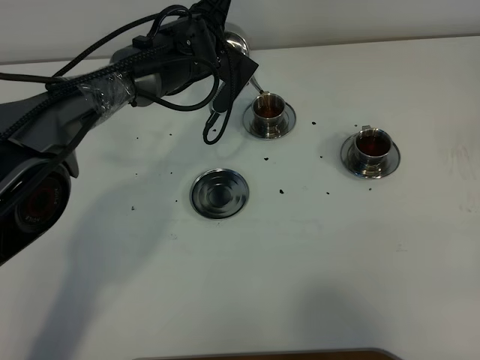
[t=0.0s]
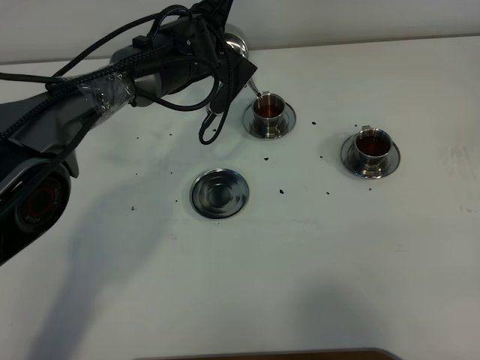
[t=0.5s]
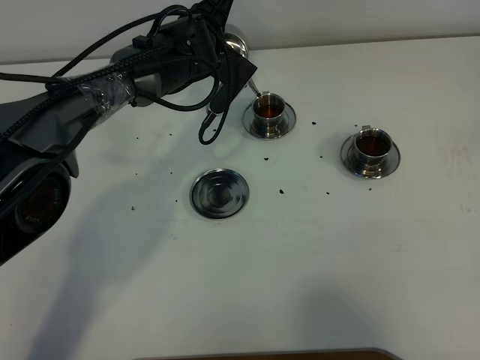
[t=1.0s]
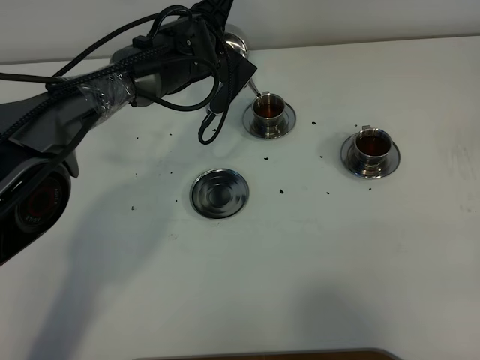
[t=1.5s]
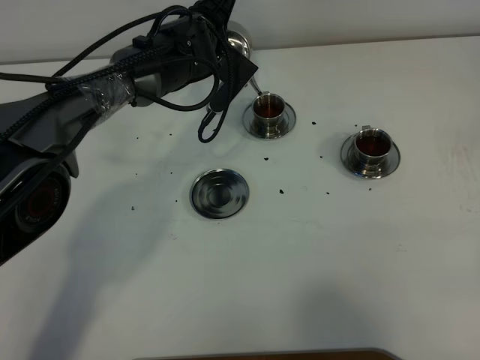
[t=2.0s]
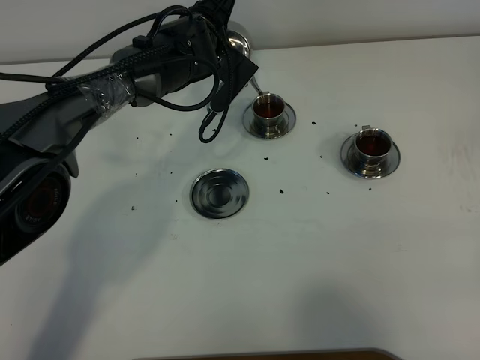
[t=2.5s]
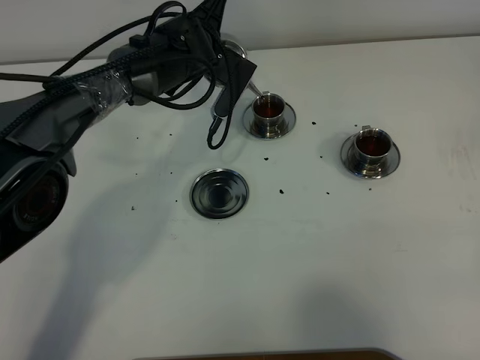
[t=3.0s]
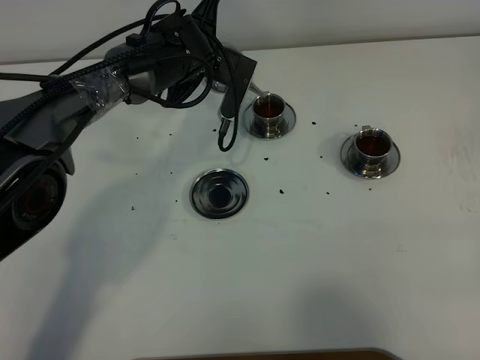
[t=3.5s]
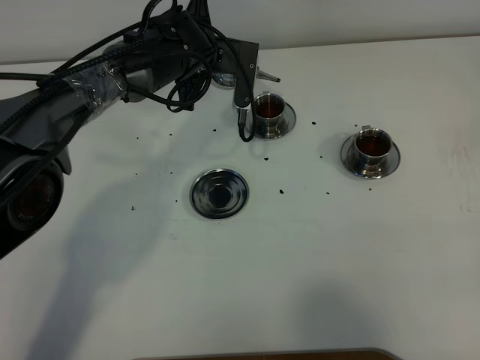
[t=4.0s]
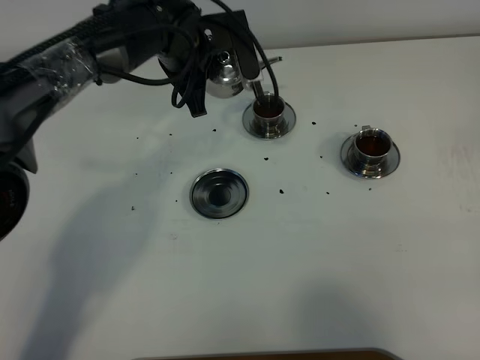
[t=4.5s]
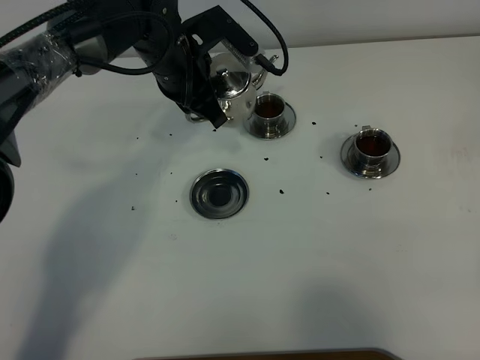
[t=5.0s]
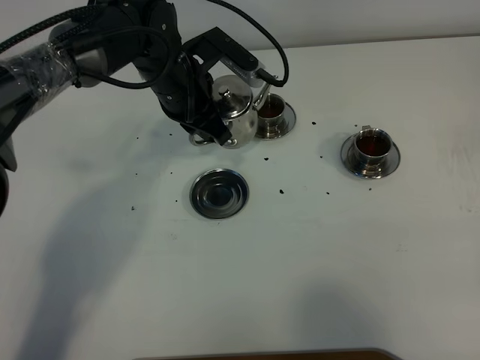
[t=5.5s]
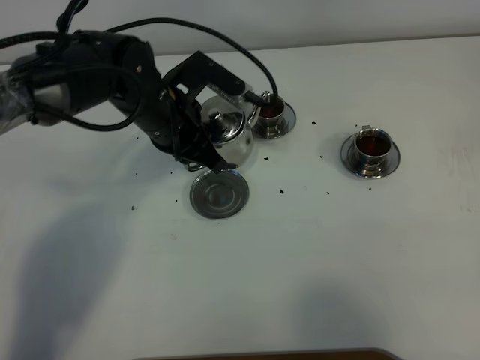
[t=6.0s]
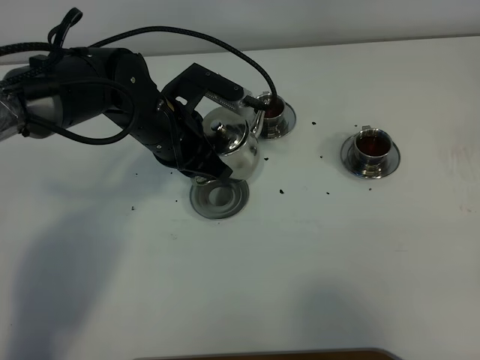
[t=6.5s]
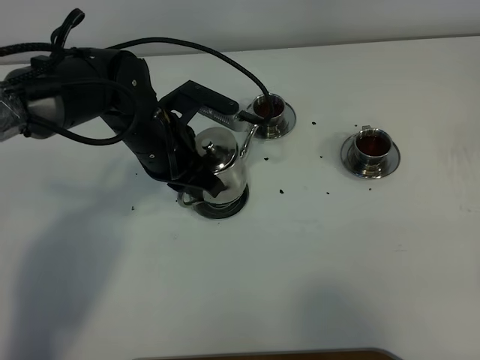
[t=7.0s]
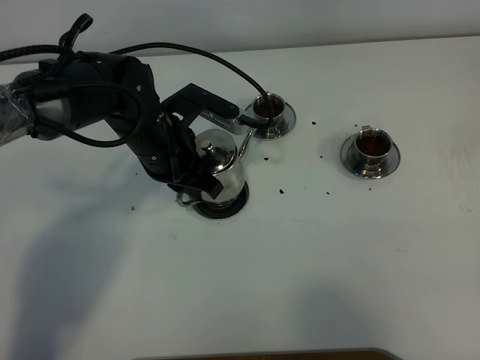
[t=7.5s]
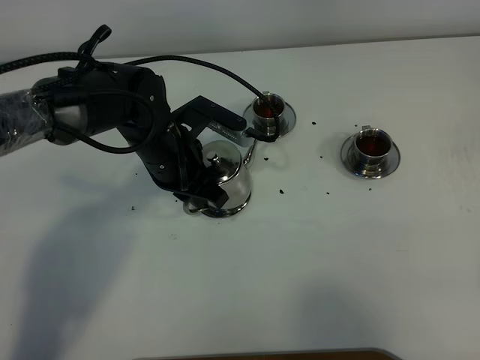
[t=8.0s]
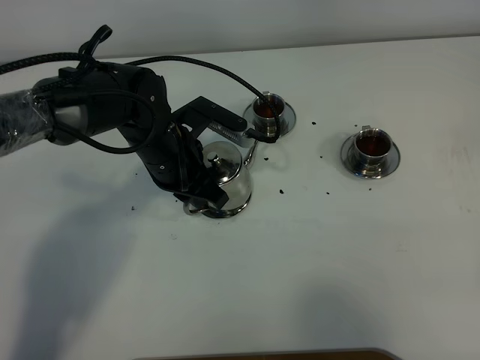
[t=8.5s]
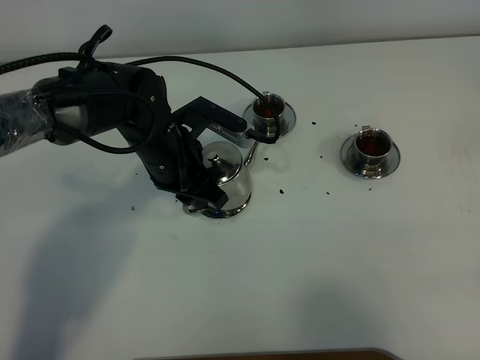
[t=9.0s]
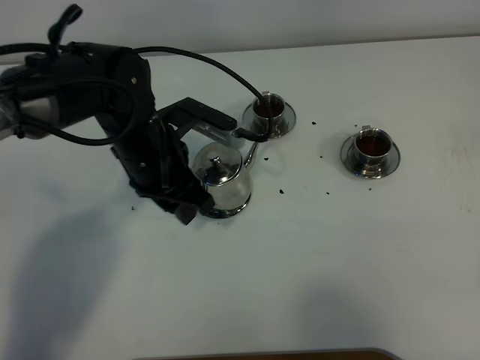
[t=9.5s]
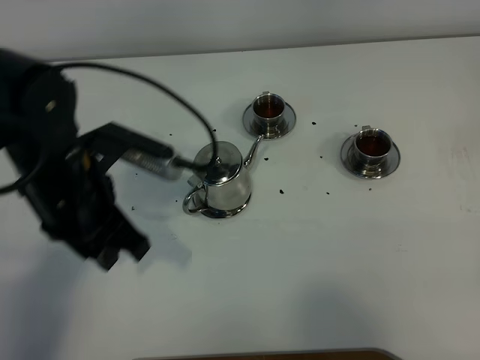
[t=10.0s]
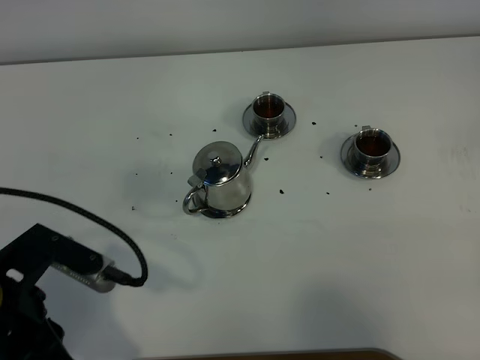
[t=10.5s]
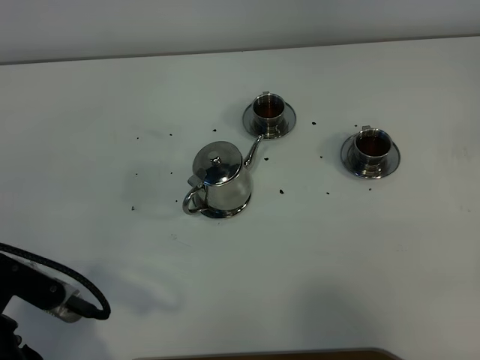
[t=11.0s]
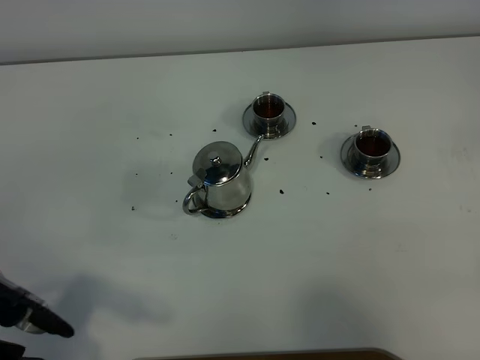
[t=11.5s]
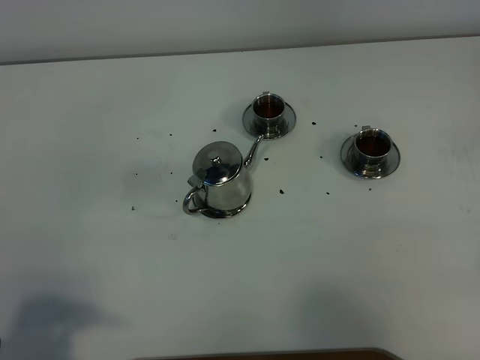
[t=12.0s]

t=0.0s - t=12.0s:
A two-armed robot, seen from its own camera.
Task of the whole recording: grasp the stainless steel teapot and pour the tea into the two stainless steel teacups one by one, put the stainless steel teapot back in its original place.
Step, t=0.0s - t=3.5s: Pour tea into the teacup with the left gripper.
t=0.0s - t=2.0s: Neither gripper changes place.
t=4.0s - t=6.0s: The left gripper goes roughly 10 cm backward.
t=6.0s - t=8.0s: The grippers stay close to where they were, moving slightly.
t=8.0s - t=10.0s: The left gripper goes some 15 cm backward, upward and to the left, and opens its fingers.
t=10.0s - t=12.0s: The left gripper is displaced backward and to the left by roughly 25 cm.

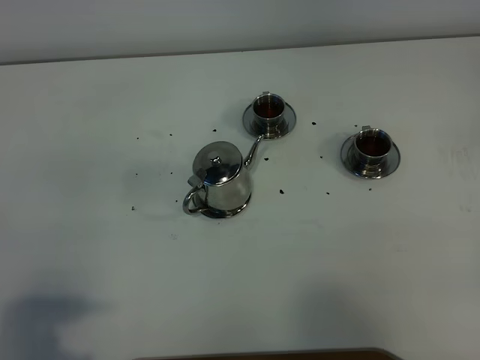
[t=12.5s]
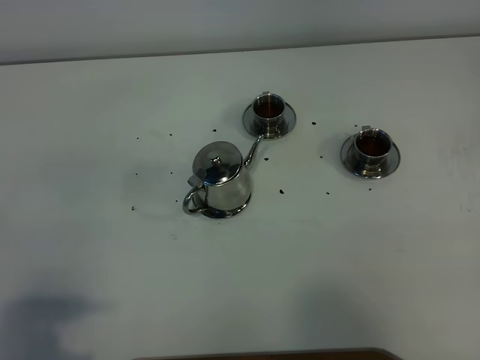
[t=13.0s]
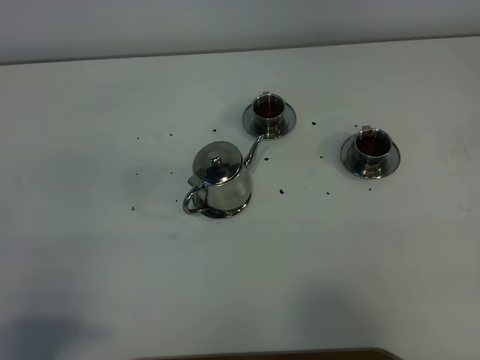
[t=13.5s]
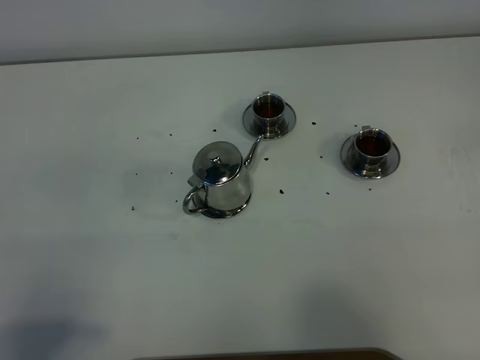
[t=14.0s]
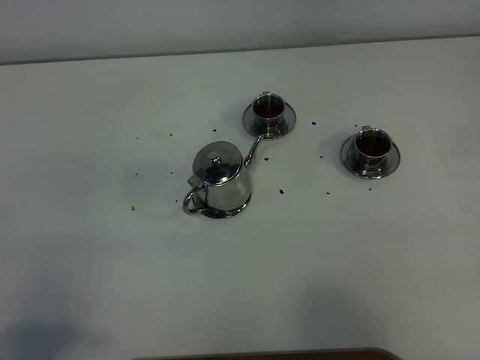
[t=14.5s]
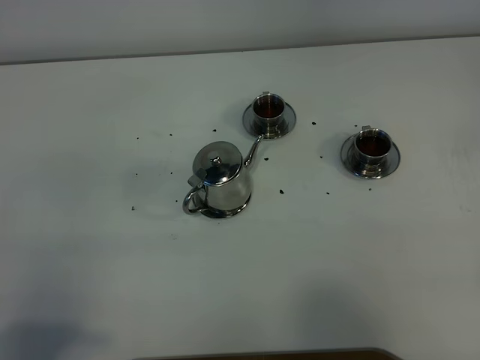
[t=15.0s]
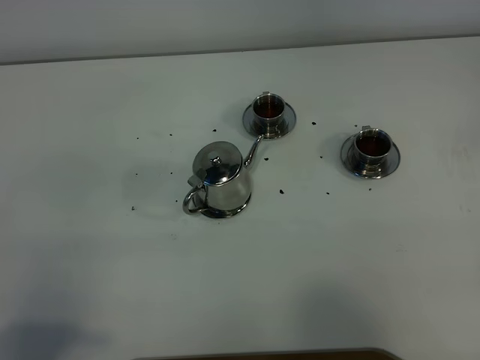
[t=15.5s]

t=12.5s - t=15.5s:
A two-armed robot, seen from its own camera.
Task of the whole recording: grasp the stainless steel teapot and pour the tea into the two stainless steel teacups one by one, put the stainless steel teapot back in its original place.
t=14.0s - t=15.5s: Both grippers stay about where they are.

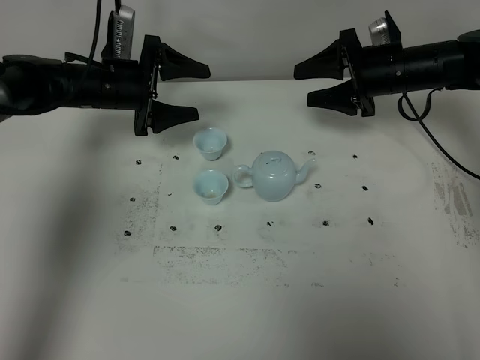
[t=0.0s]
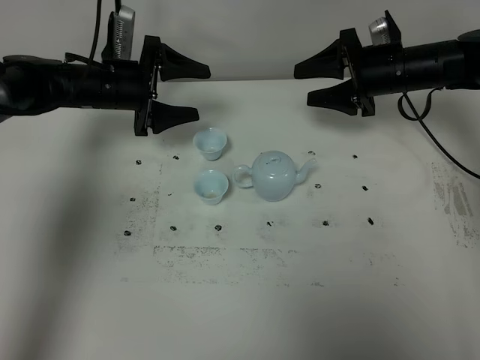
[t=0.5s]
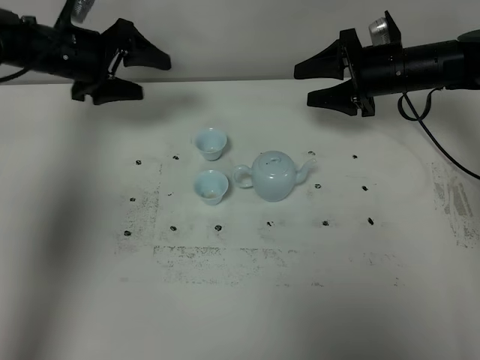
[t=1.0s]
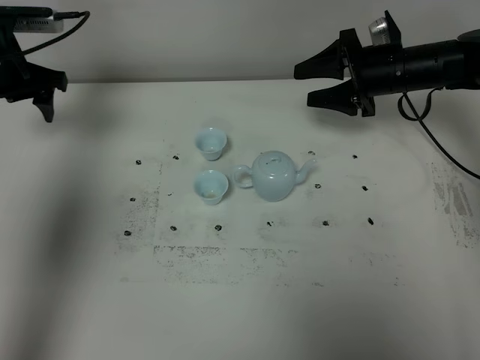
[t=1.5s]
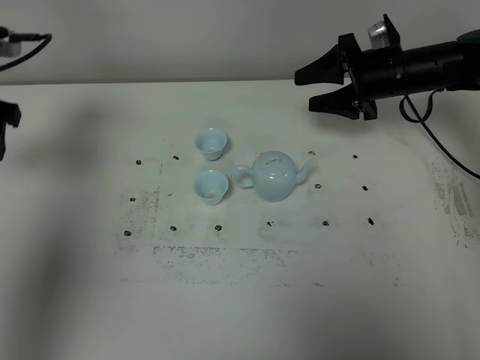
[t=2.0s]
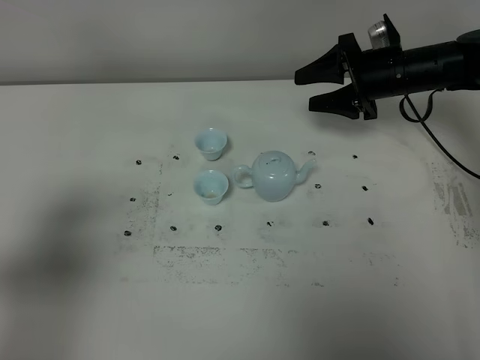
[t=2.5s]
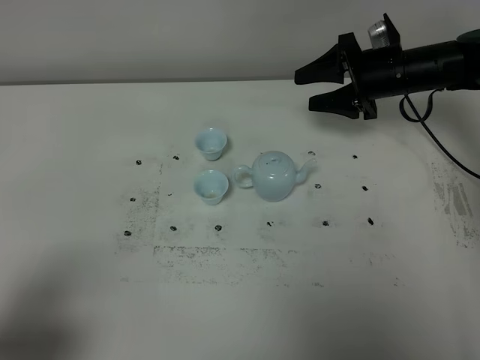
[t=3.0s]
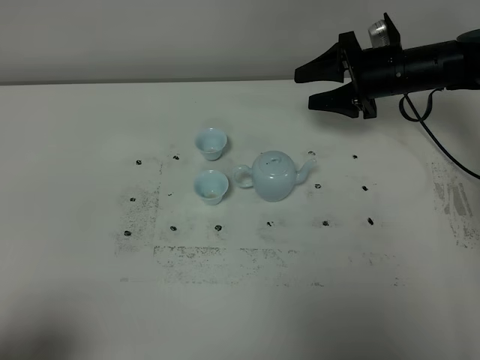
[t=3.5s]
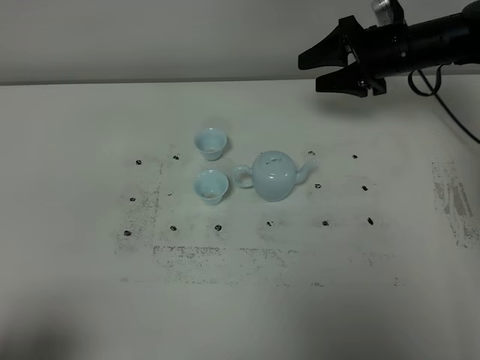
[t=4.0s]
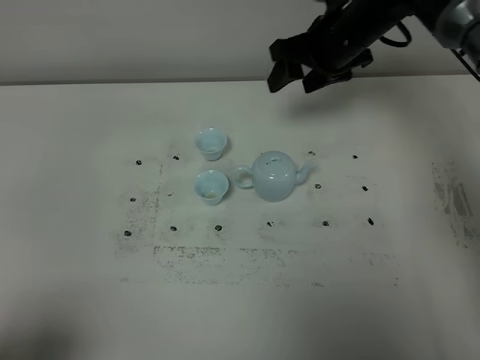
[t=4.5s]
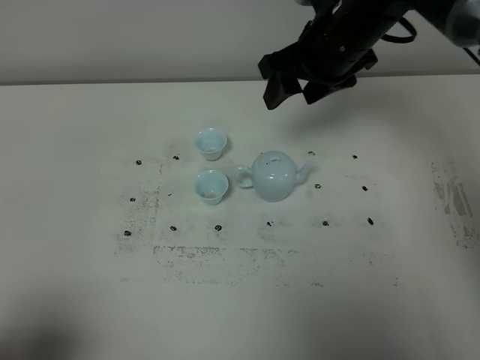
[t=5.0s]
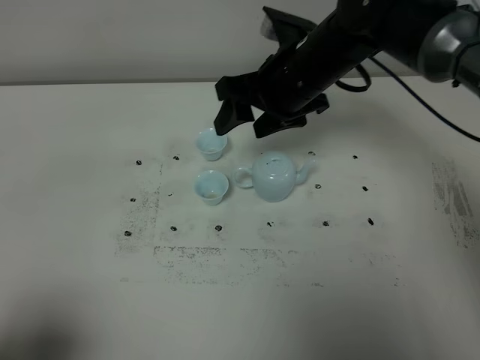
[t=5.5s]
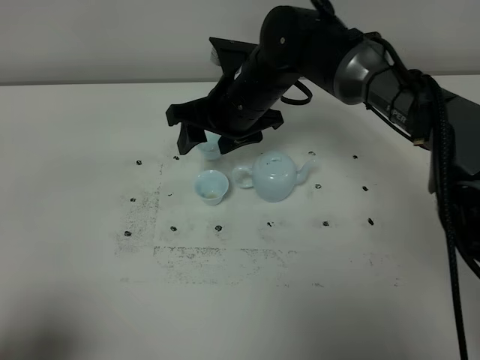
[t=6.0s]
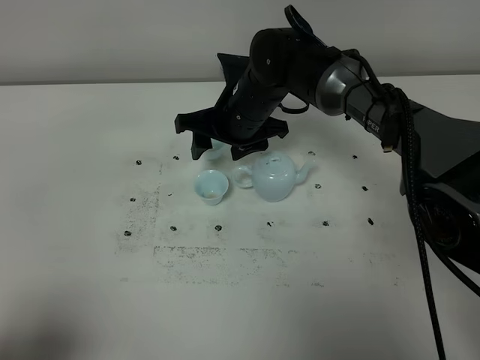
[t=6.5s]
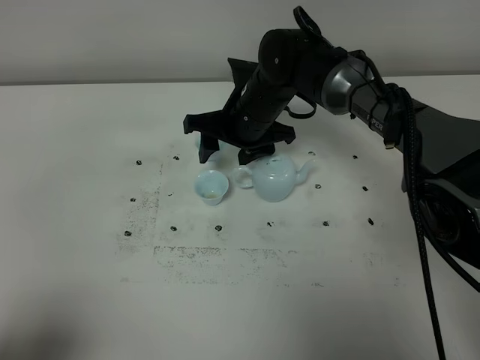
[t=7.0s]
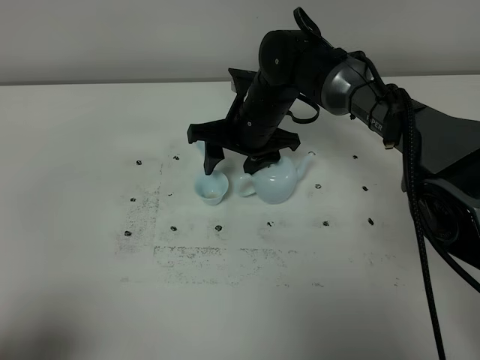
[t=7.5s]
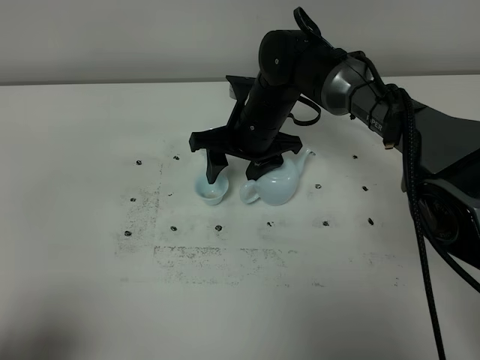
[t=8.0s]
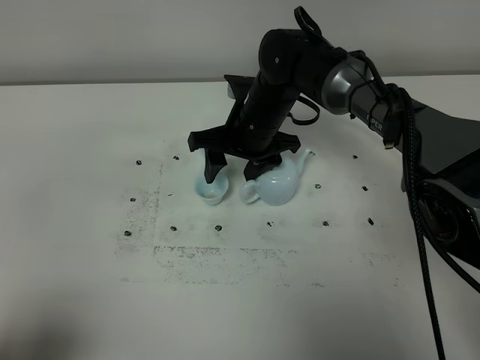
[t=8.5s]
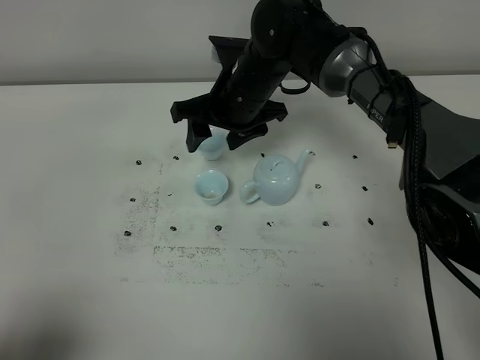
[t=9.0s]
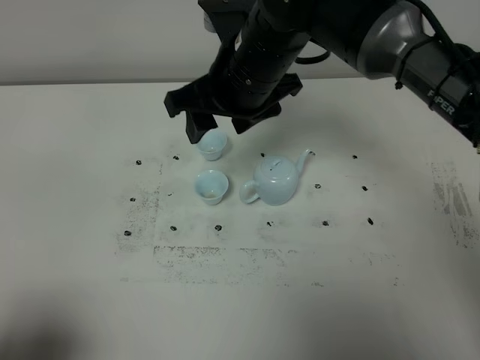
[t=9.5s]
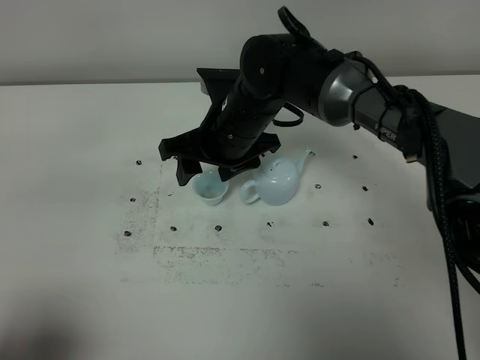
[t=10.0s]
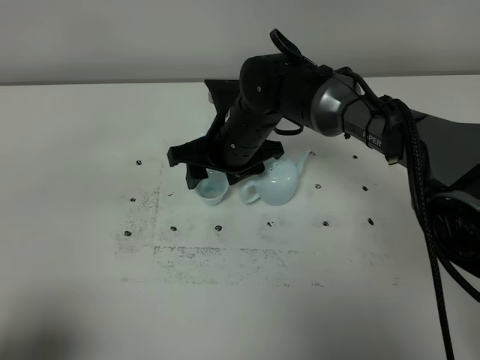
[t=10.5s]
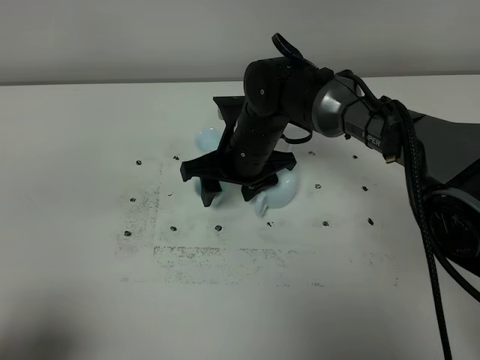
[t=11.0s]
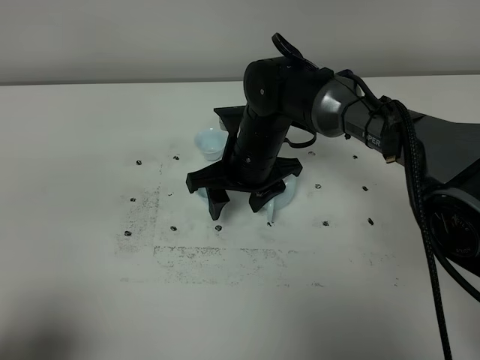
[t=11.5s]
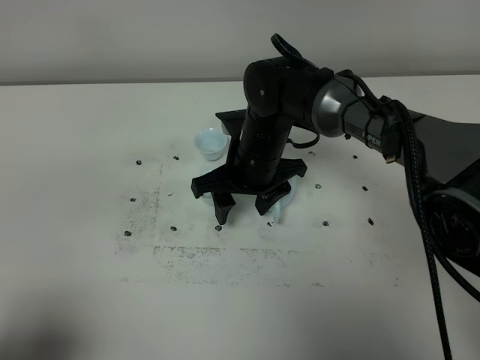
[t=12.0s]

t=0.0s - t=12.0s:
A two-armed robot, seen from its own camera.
Task of the whole recording: grasp the blue porcelain teapot and pour the tea into the two blue porcelain teacups one by one, put the blue porcelain teapot back in its original place.
t=0.0s - t=2.0s: The left gripper shifts approximately 20 cm backward, upward and to the left.
t=2.0s - t=4.0s: The left gripper goes roughly 35 cm backward.
t=4.0s - t=6.0s: The right gripper shifts about 20 cm to the left.
t=6.0s - t=8.0s: The right gripper moves about 5 cm.
t=8.0s - t=10.0s: The right gripper travels upward and back again, approximately 10 cm each way.
t=10.0s - t=12.0s: The grippers stay close to where they were, moving slightly.
